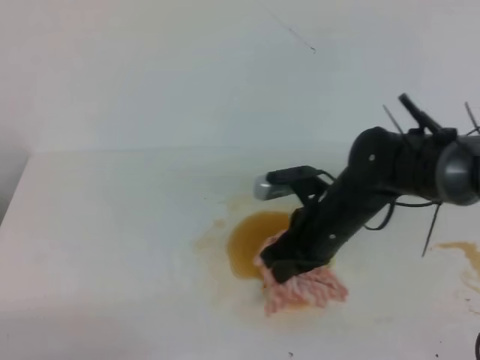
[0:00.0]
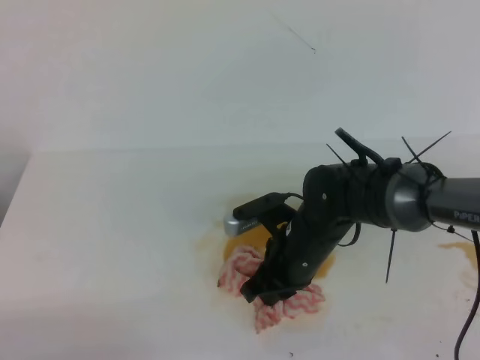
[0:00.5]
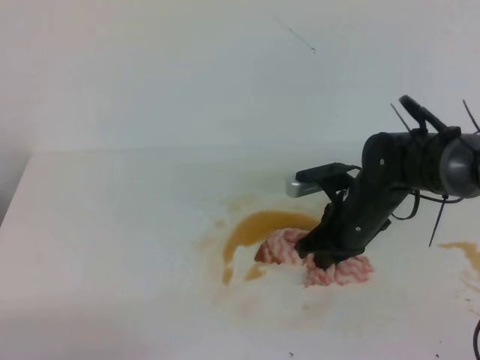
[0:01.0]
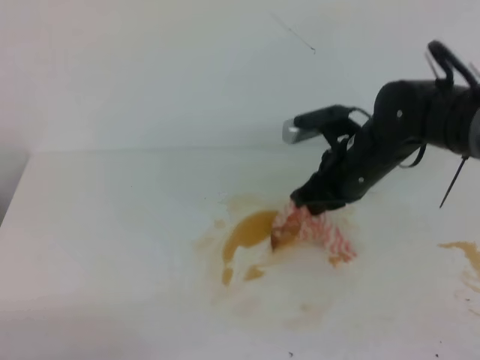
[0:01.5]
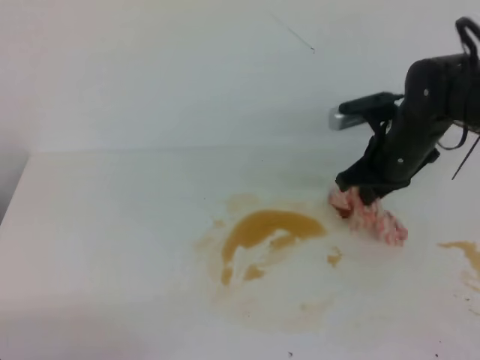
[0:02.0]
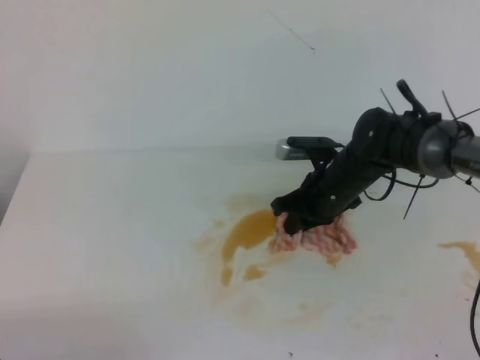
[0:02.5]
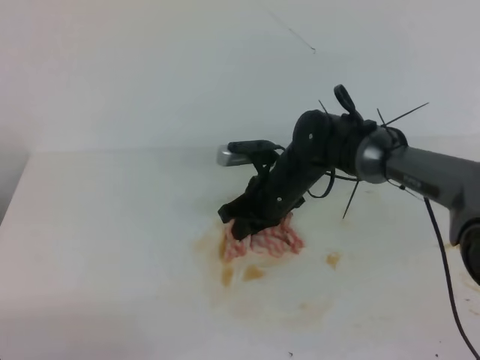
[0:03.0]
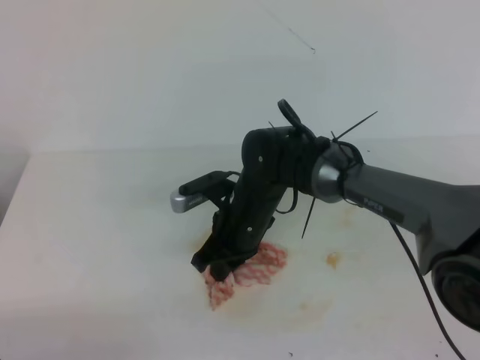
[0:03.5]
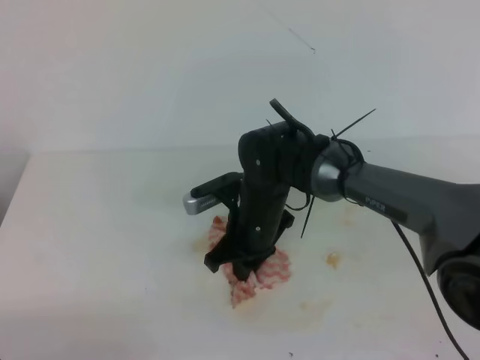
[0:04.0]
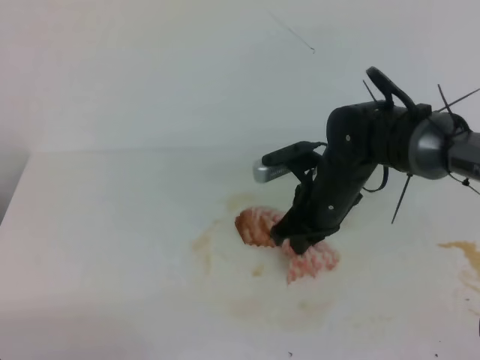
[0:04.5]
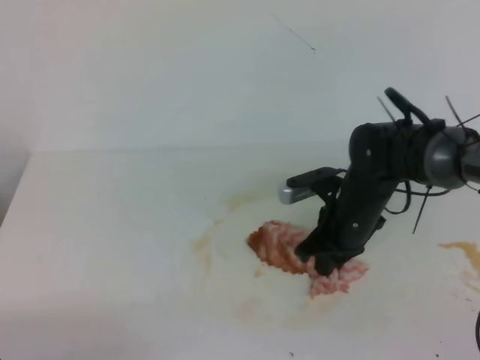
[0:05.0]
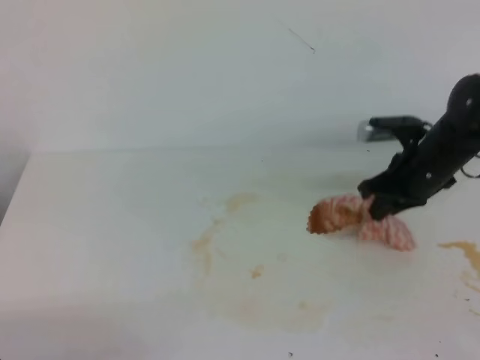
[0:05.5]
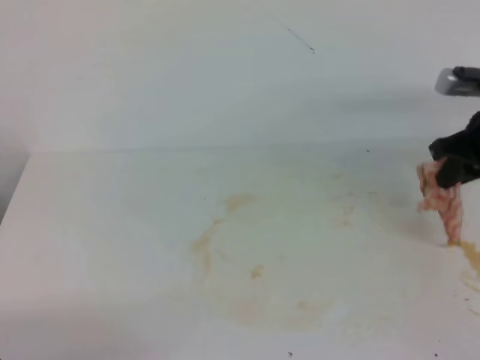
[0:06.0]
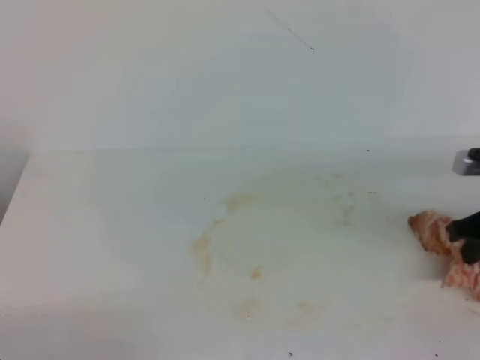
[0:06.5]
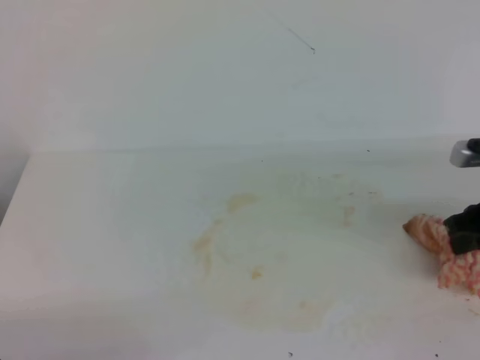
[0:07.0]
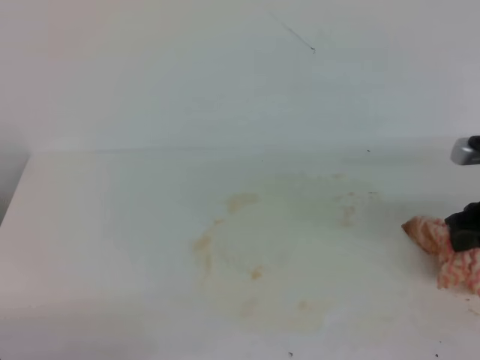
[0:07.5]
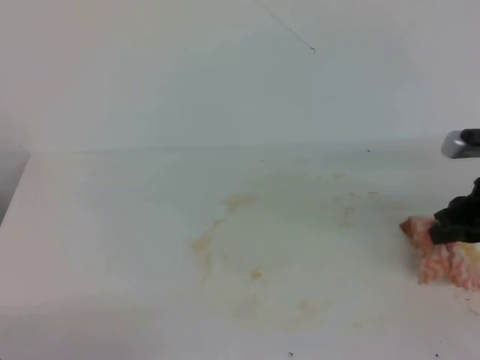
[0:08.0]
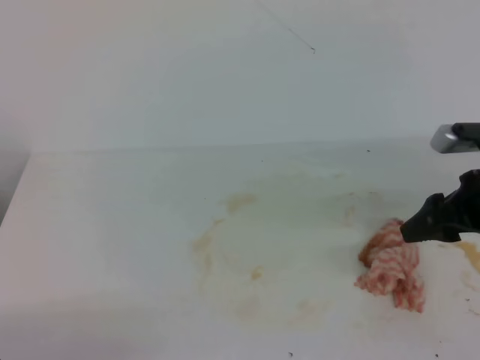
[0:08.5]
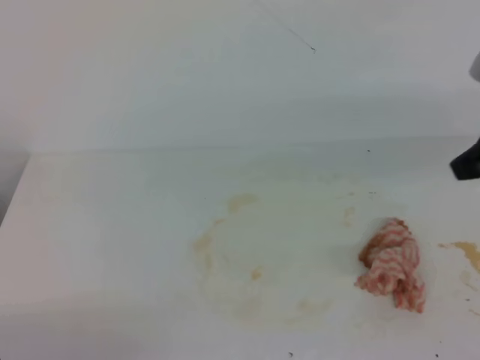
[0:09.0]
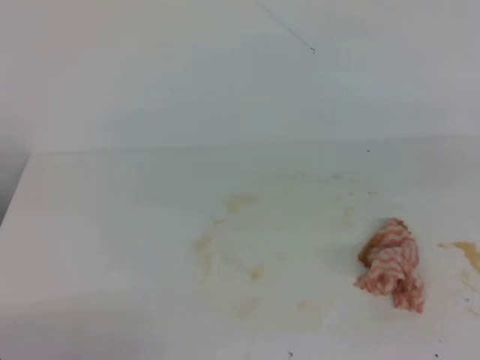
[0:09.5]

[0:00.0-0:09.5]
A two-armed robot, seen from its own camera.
0:00.0 to 0:02.0: The right gripper shifts about 10 cm forward and to the right.
0:02.0 to 0:04.0: The right gripper moves to the left, roughly 15 cm.
0:04.0 to 0:05.5: The right gripper moves to the right, some 20 cm.
0:05.5 to 0:07.5: The right gripper goes roughly 10 cm backward and to the right, and opens its fingers.
0:07.5 to 0:09.5: The right gripper shifts some 25 cm upward and backward, and closes up.

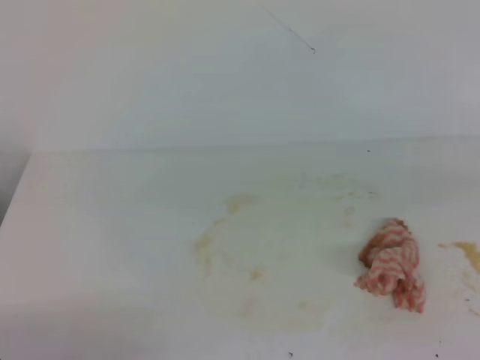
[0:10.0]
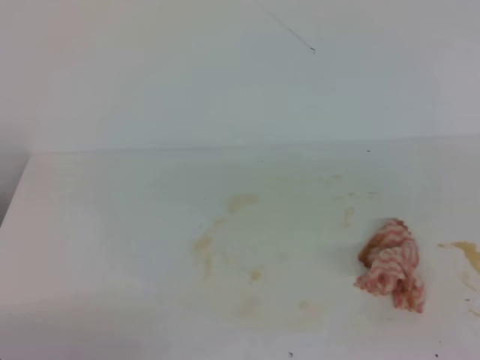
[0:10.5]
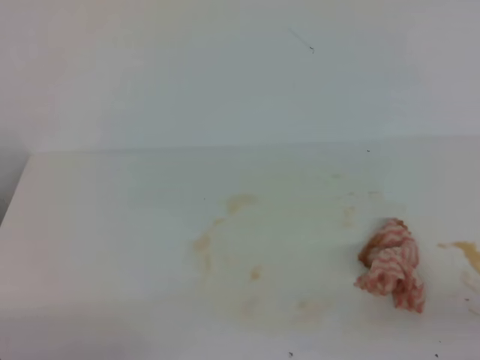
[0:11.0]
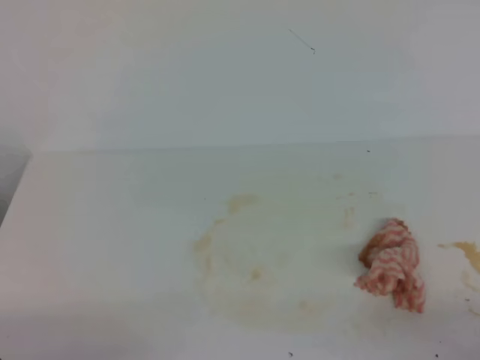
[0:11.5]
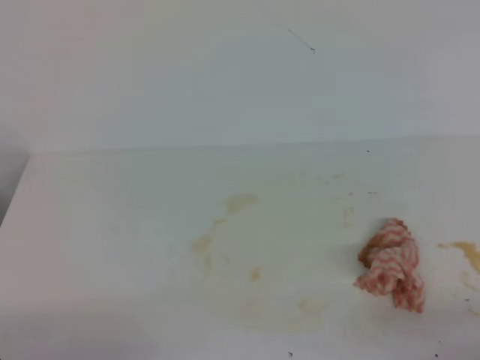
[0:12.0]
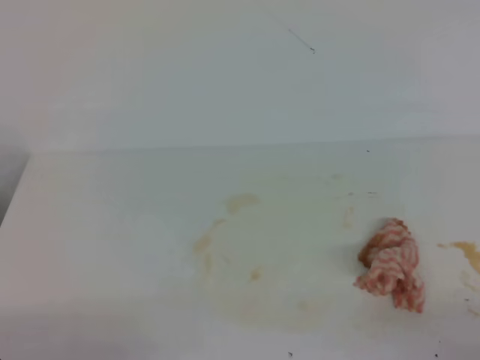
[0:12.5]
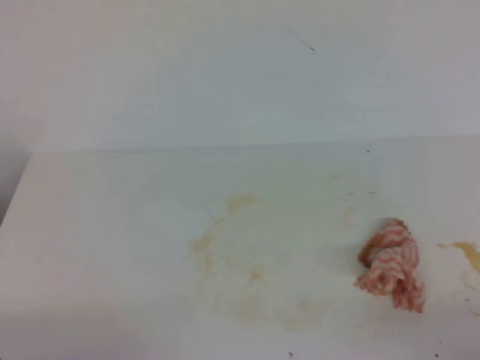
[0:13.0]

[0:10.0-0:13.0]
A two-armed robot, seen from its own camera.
0:10.0 to 0:11.5: The right gripper is displaced downward and backward by roughly 25 cm.
